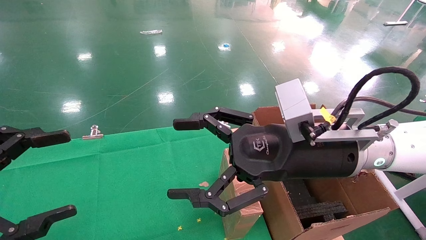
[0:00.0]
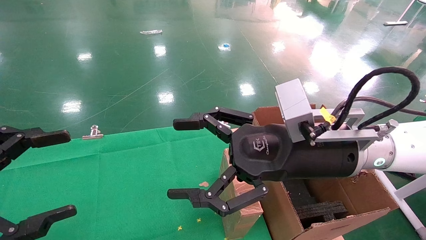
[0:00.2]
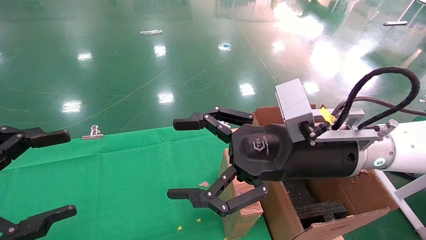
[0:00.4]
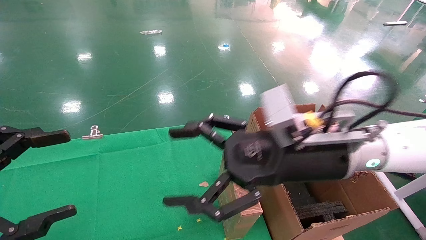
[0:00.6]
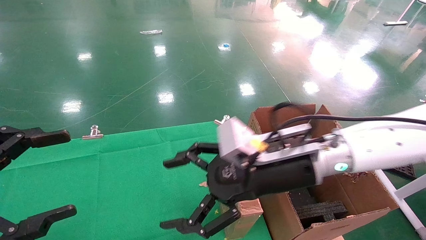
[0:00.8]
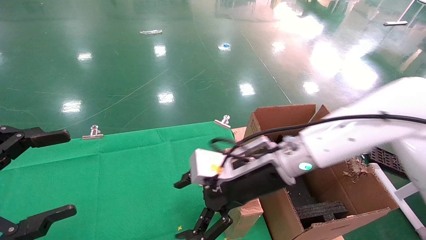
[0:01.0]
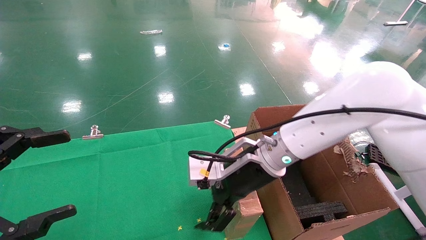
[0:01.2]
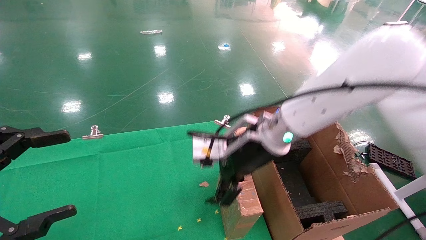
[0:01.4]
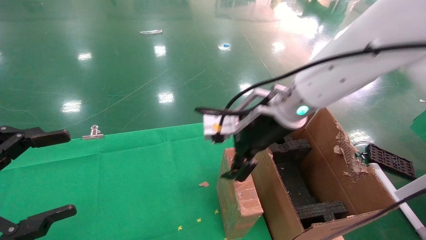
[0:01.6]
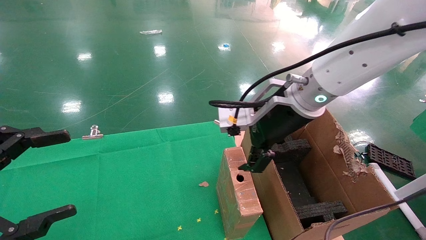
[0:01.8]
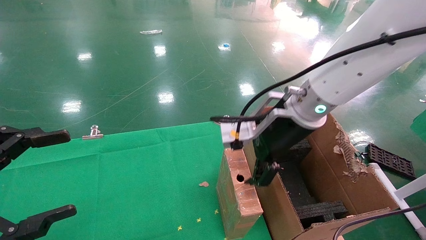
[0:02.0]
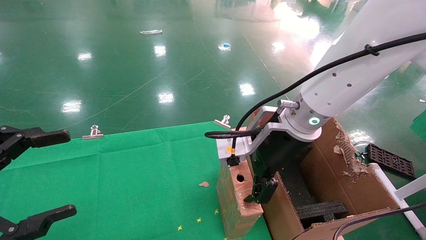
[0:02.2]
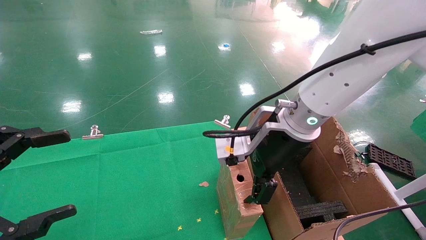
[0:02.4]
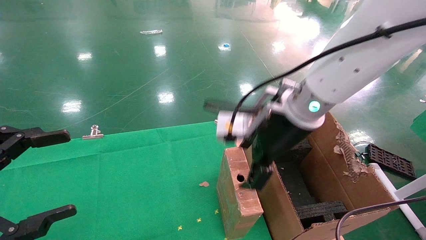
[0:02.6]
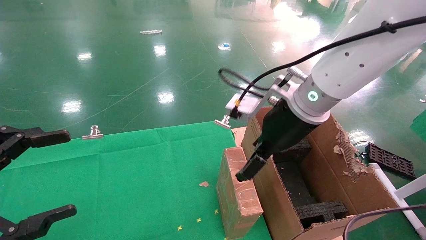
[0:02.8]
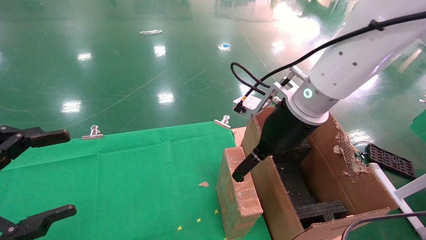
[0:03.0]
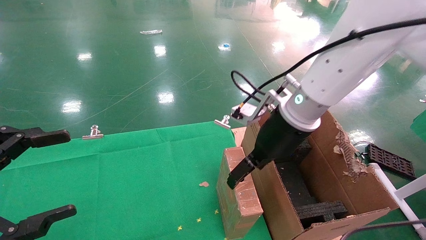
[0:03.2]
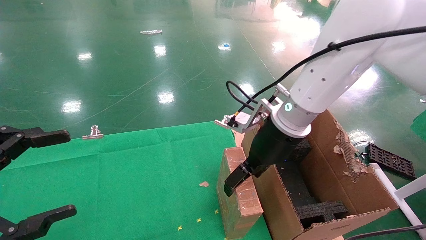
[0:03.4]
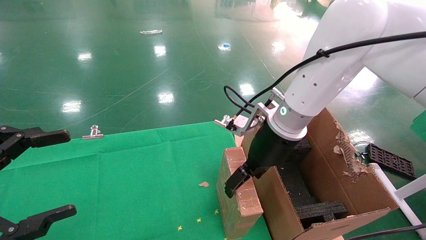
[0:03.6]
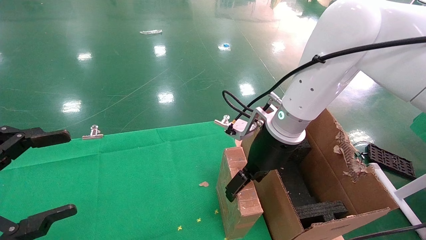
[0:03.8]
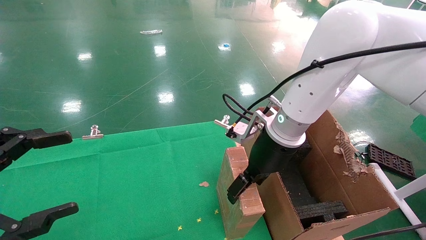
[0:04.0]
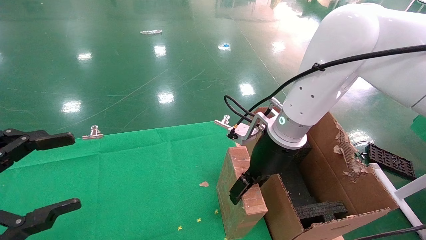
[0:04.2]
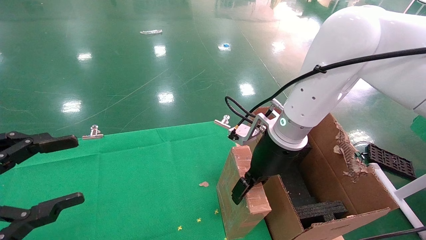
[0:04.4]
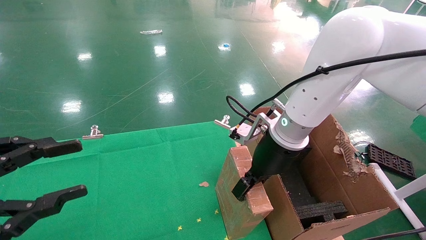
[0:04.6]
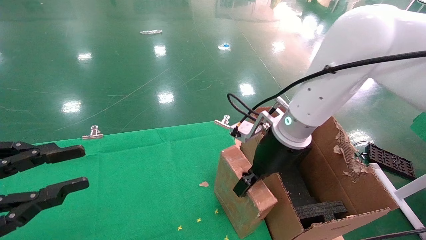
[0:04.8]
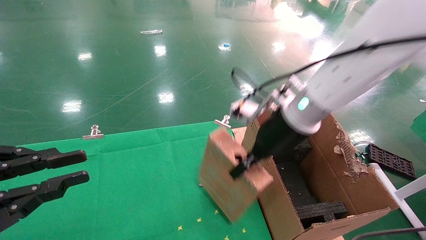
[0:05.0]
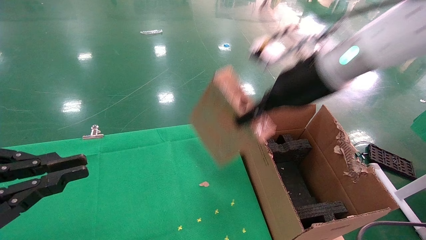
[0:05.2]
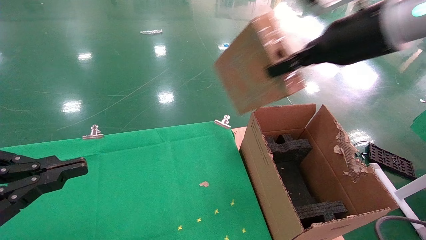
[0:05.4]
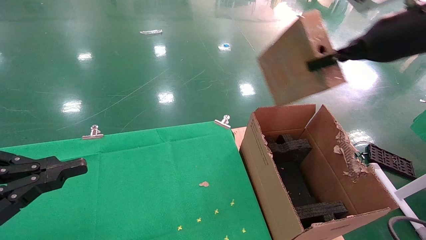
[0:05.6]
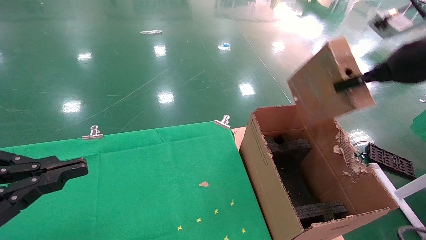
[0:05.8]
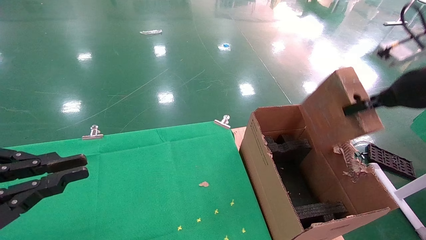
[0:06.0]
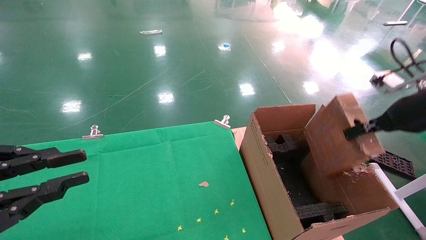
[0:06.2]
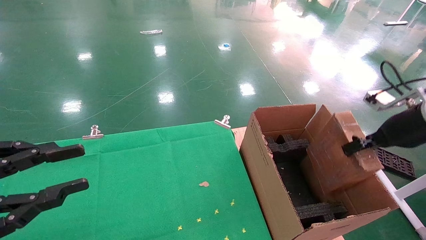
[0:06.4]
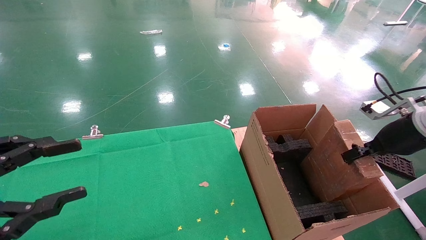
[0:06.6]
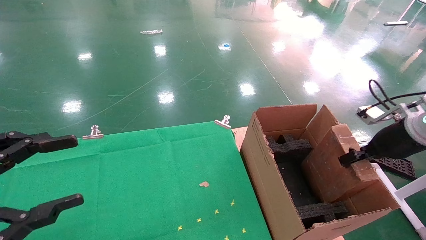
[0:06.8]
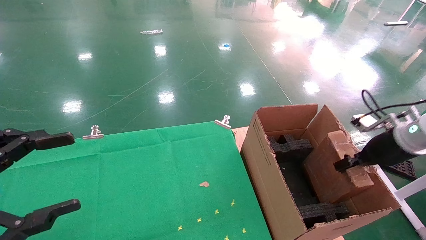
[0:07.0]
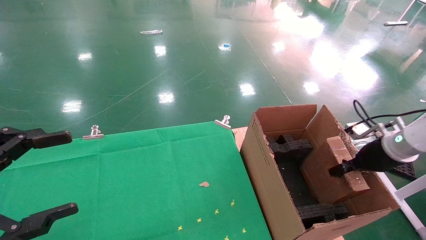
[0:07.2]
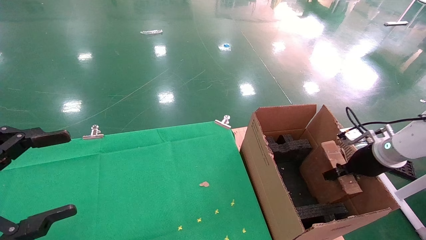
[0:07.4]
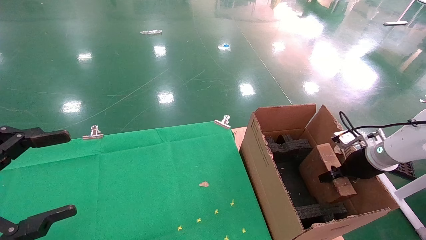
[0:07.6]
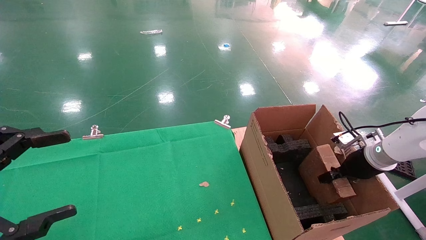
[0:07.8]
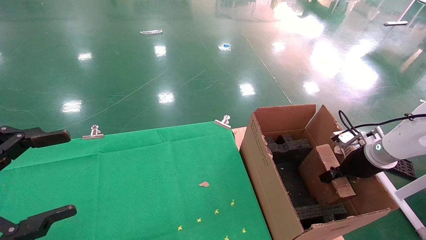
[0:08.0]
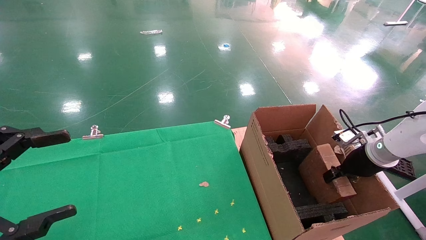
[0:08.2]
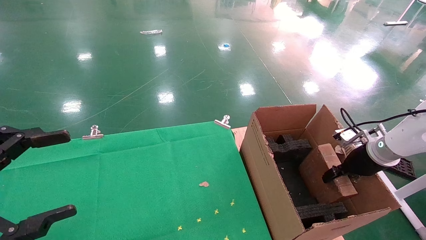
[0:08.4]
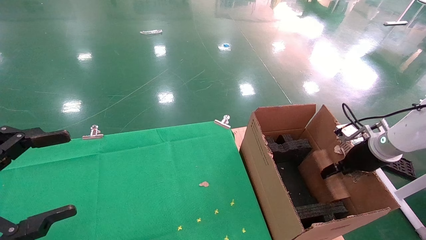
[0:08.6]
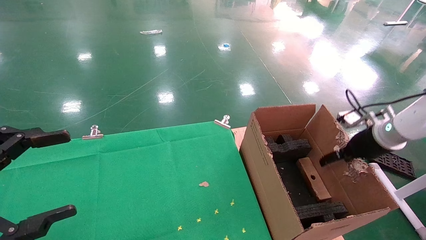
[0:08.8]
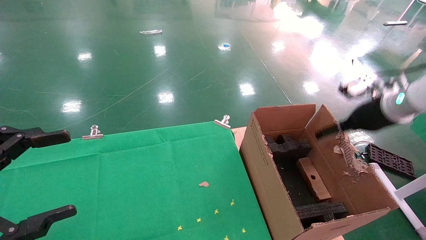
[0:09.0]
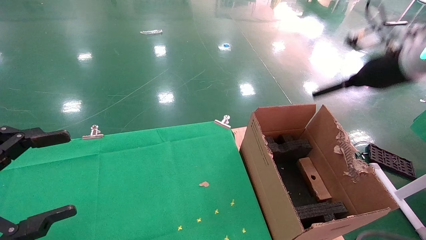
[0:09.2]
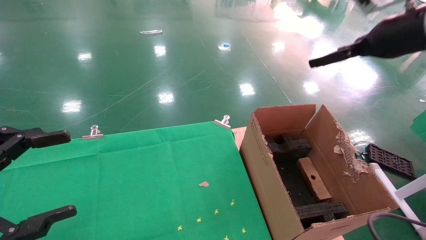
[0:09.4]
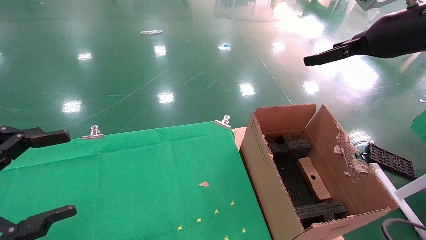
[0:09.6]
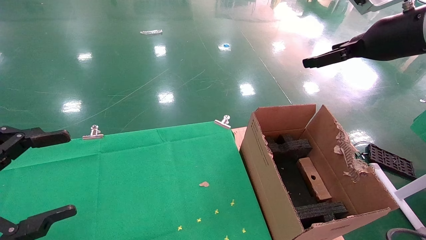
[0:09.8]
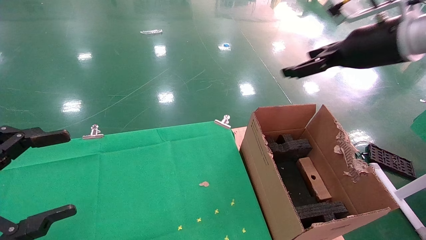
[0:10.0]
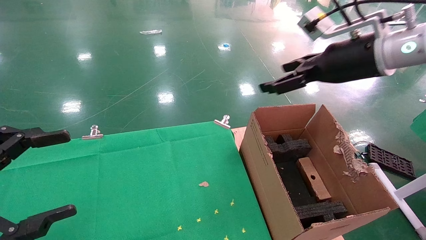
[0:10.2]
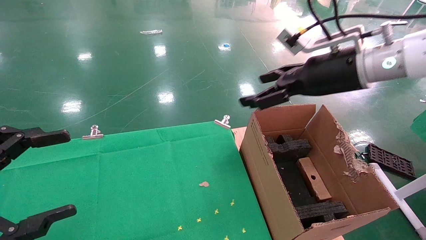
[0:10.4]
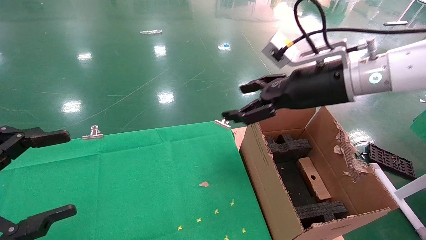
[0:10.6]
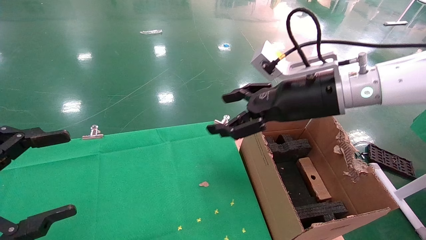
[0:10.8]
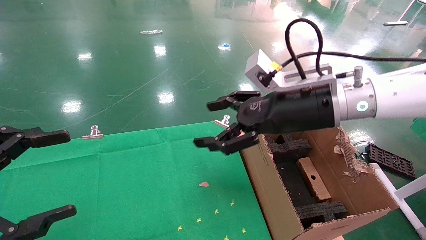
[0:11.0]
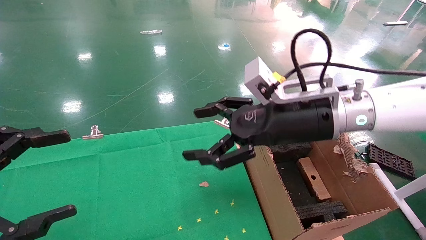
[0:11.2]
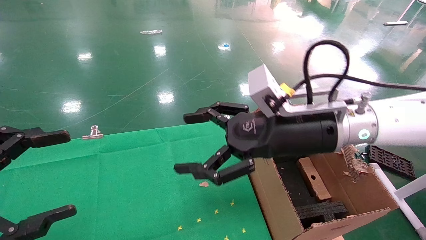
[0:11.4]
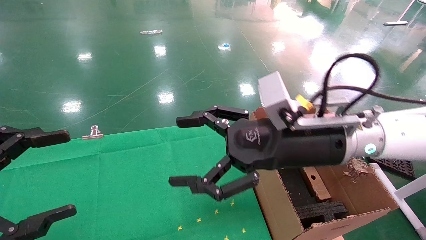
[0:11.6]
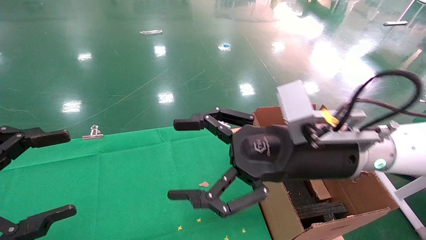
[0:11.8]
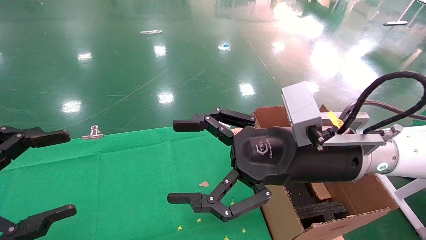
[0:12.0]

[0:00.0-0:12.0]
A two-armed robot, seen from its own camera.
Task of the whole recording: using a robotic arm to pick up a cardboard box and palace it the carton.
Step, 0:01.0 to 0:04.8: Pick up the mouse and the power cord paper box.
Step, 0:05.0 to 0:09.2: Place the mouse and the power cord paper box into the container.
0:00.0 to 0:01.6: The right gripper travels forward by some 10 cm.
0:03.0 to 0:04.4: The right gripper goes about 5 cm downward.
0:04.4 to 0:06.0: The right gripper heads to the right and upward, covering some 25 cm, and closes its fingers, while the left gripper closes up.
0:06.0 to 0:07.6: The left gripper opens its fingers. Meanwhile the right gripper moves downward and forward, some 25 cm.
0:07.6 to 0:09.0: The right gripper shifts roughly 15 cm upward, and opens its fingers.
0:09.0 to 0:10.4: The right gripper goes about 20 cm to the left and upward.
0:10.4 to 0:12.0: The right gripper is displaced downward, to the left and backward by about 15 cm.

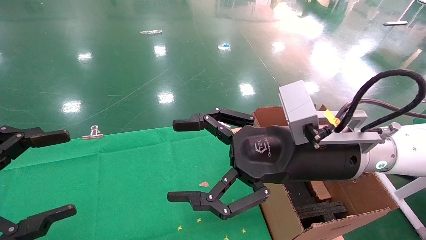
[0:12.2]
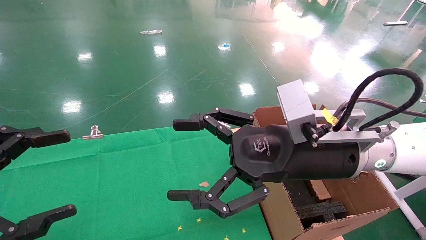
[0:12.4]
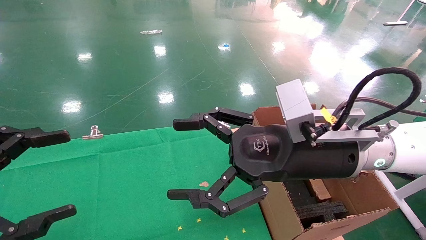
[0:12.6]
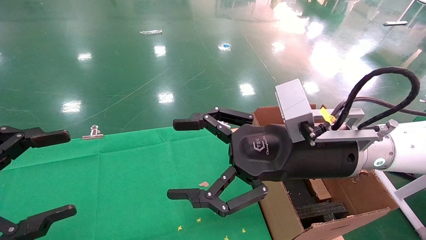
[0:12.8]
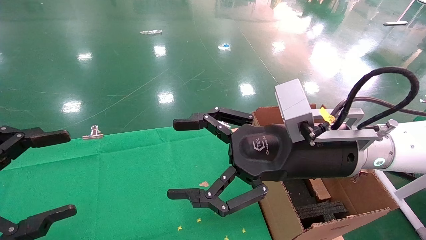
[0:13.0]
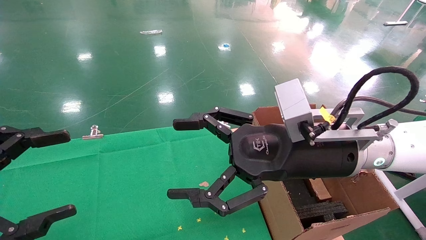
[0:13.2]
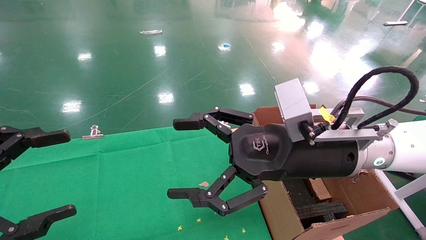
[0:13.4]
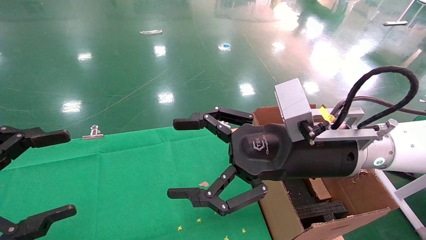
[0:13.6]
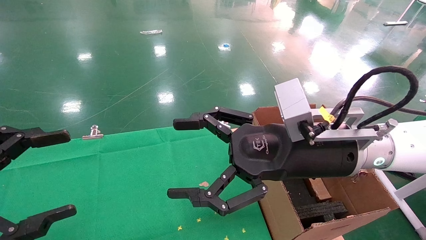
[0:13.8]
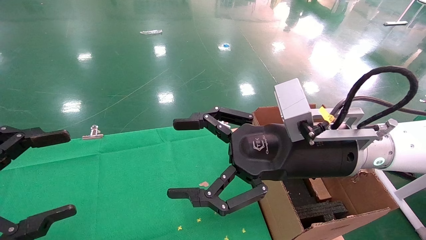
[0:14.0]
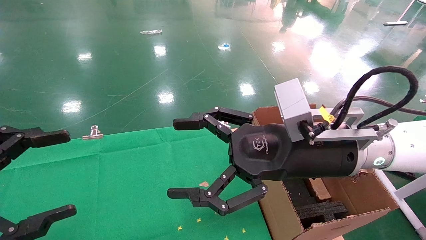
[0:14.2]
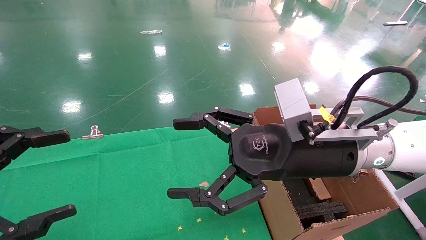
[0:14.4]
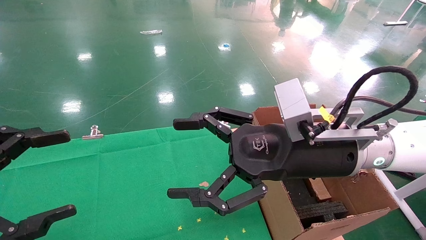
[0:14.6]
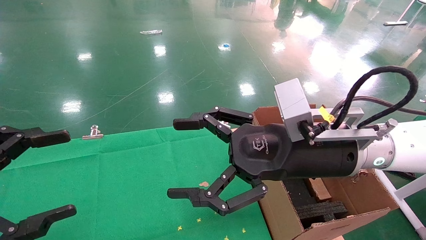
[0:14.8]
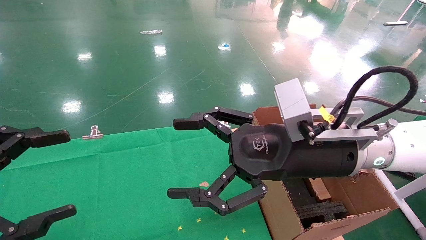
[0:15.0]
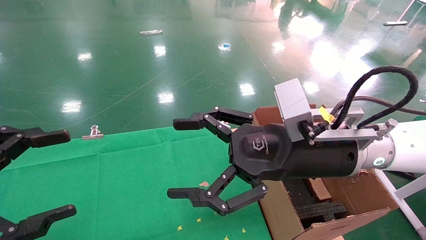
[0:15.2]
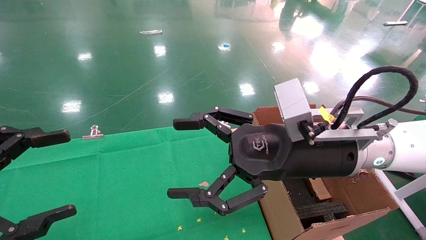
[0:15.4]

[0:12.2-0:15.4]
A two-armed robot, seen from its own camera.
Task of the whole recording: using a robotic arm to pick up a cardboard box and palace it the carton.
0:12.2 to 0:15.4: Neither gripper changes place.
